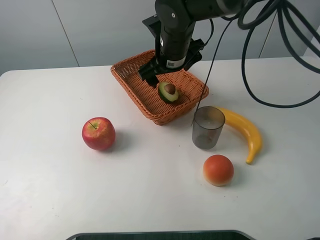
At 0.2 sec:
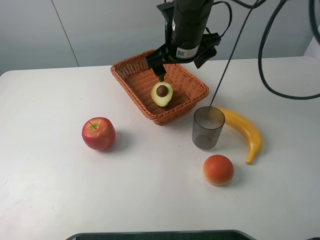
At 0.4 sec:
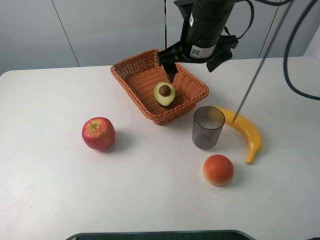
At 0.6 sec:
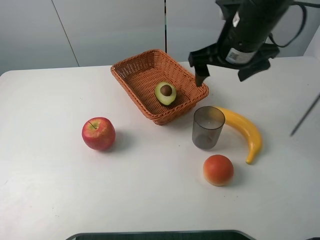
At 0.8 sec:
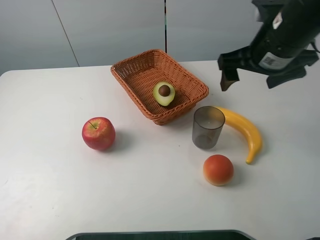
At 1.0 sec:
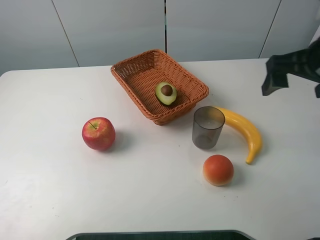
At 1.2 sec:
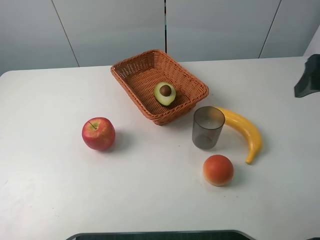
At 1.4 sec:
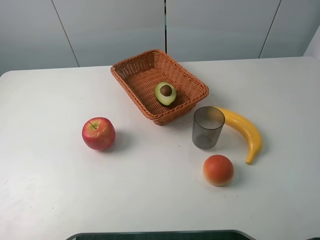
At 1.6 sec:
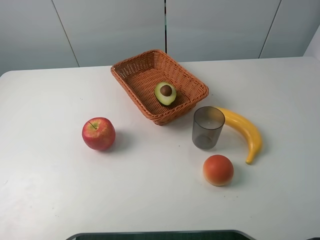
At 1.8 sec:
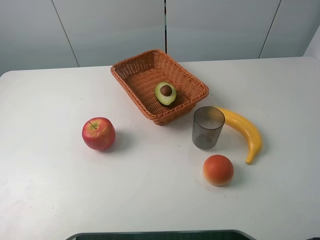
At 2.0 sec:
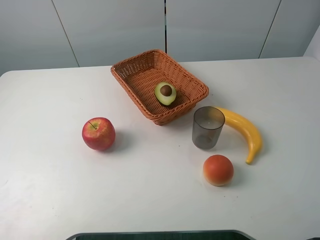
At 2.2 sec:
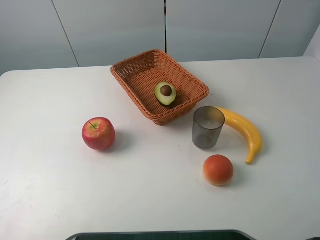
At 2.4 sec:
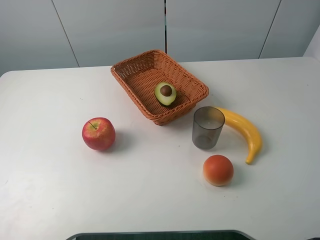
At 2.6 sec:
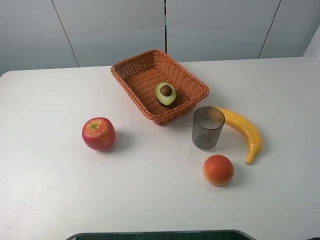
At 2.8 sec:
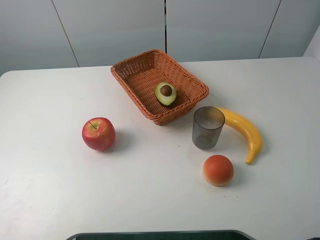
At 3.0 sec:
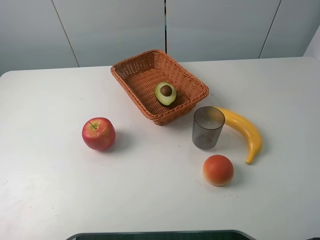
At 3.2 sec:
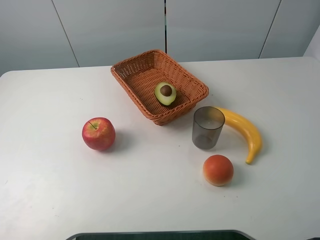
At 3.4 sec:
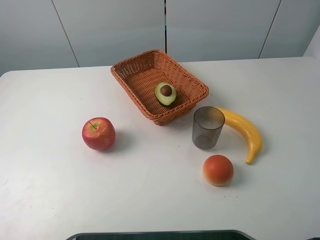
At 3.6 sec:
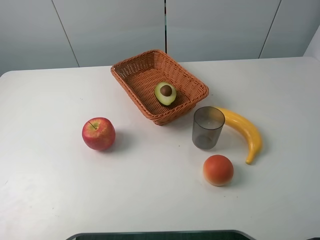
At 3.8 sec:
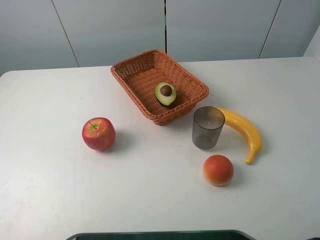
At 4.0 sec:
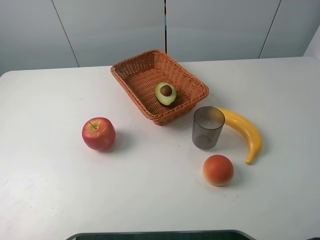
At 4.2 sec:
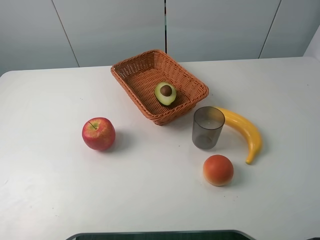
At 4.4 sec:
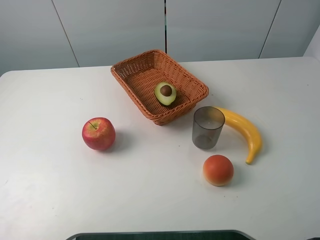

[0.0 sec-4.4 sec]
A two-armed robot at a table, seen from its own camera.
Task of the whole recording: randomly pick up an item from the table and put it in the basket.
0.0 sec to 1.4 sec: The right gripper shifts about 35 cm to the right, backward and upward.
3.0 sec to 4.4 sec: Both grippers stay put.

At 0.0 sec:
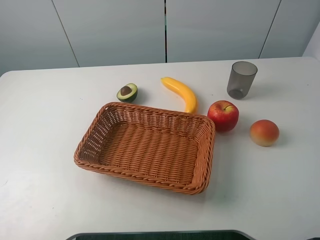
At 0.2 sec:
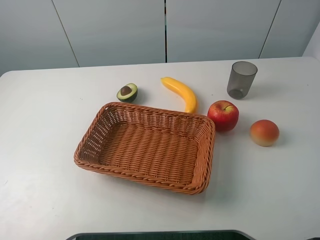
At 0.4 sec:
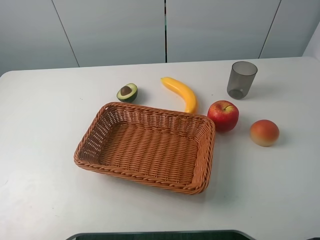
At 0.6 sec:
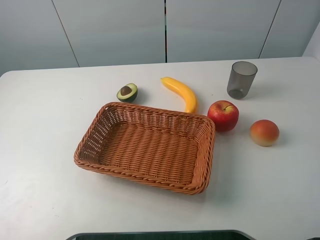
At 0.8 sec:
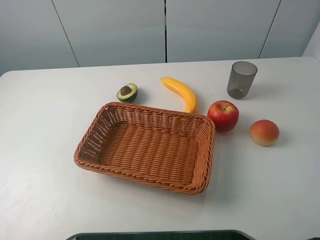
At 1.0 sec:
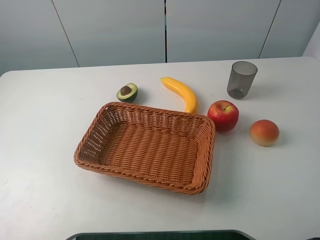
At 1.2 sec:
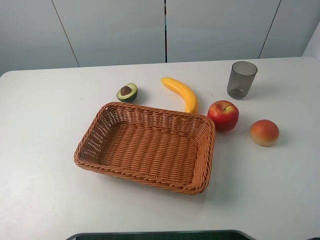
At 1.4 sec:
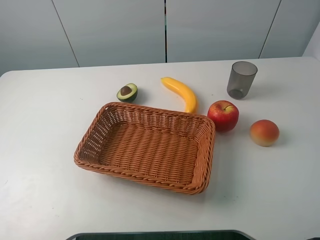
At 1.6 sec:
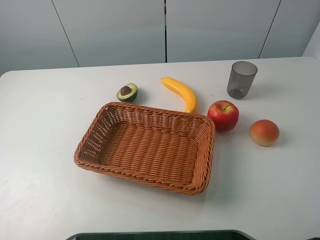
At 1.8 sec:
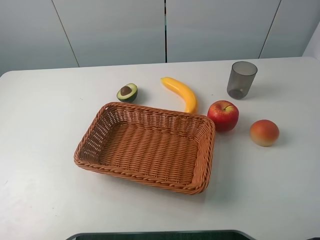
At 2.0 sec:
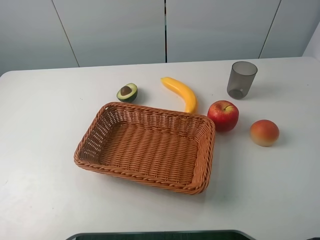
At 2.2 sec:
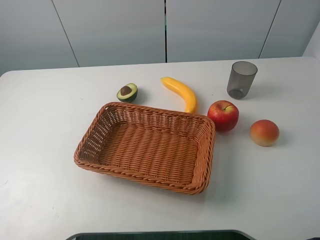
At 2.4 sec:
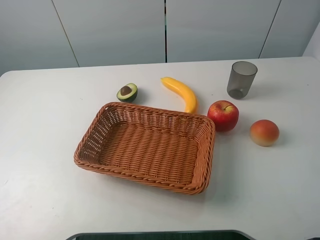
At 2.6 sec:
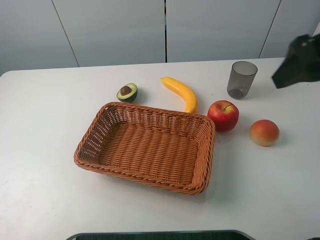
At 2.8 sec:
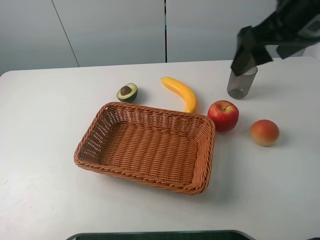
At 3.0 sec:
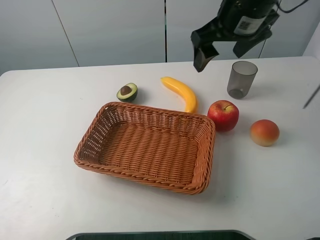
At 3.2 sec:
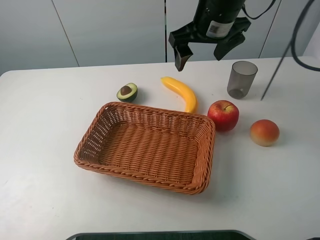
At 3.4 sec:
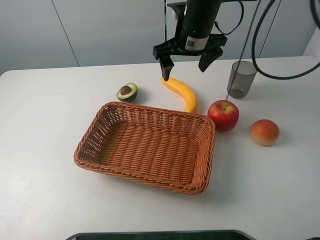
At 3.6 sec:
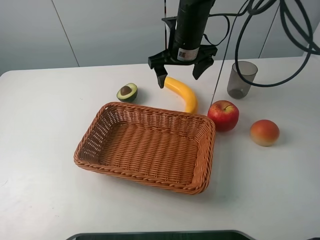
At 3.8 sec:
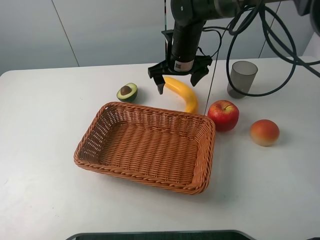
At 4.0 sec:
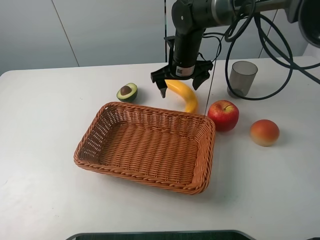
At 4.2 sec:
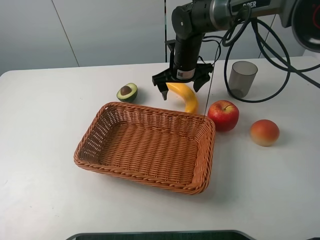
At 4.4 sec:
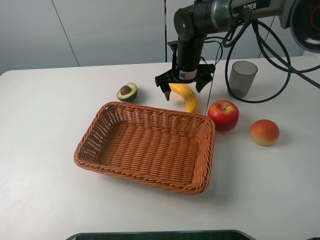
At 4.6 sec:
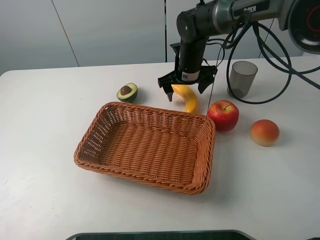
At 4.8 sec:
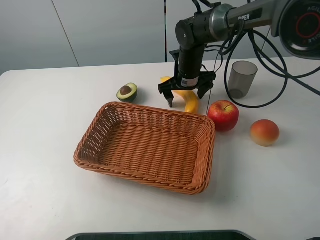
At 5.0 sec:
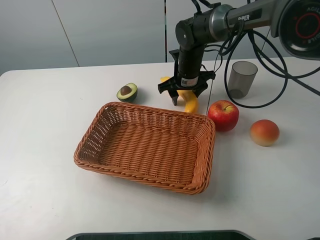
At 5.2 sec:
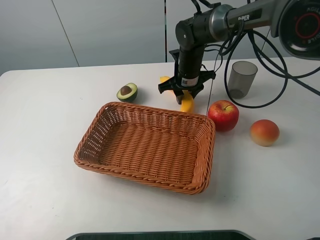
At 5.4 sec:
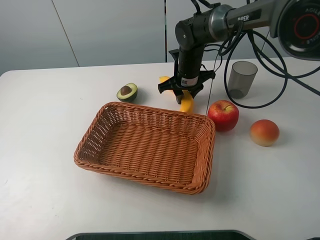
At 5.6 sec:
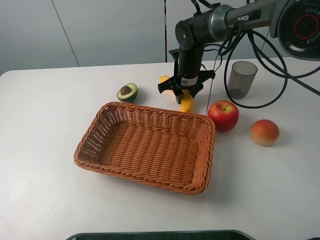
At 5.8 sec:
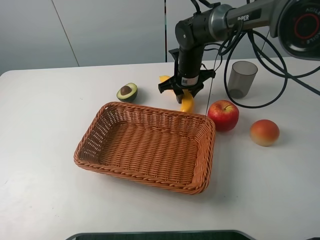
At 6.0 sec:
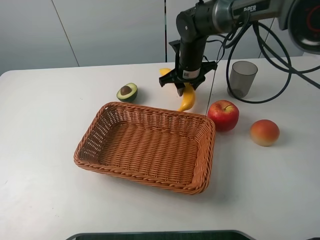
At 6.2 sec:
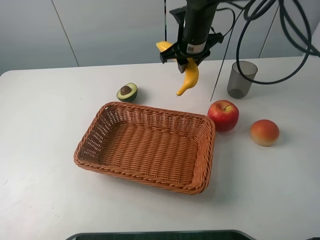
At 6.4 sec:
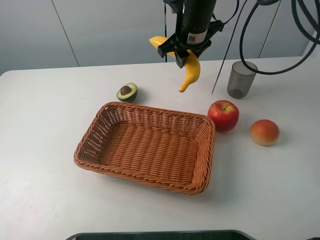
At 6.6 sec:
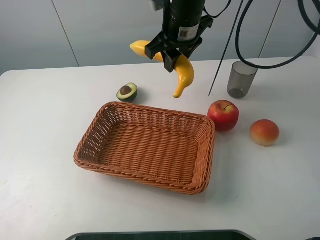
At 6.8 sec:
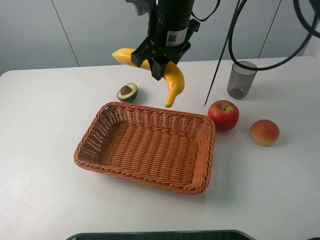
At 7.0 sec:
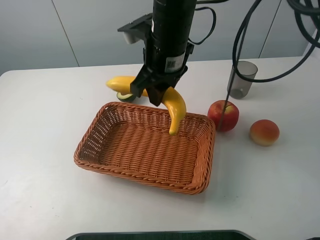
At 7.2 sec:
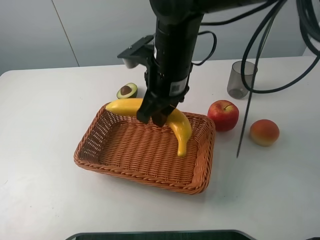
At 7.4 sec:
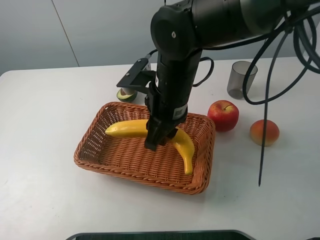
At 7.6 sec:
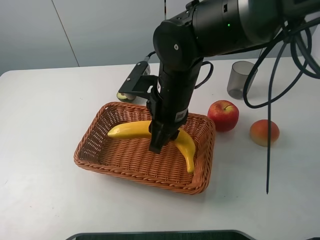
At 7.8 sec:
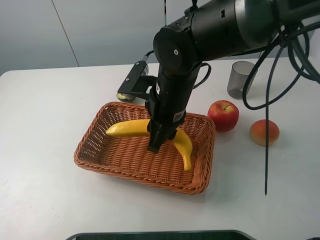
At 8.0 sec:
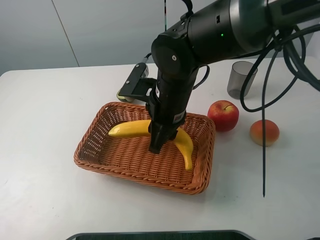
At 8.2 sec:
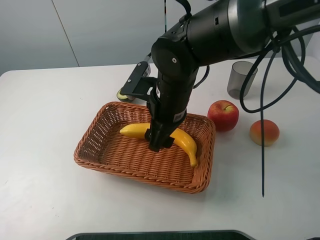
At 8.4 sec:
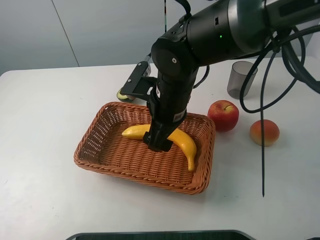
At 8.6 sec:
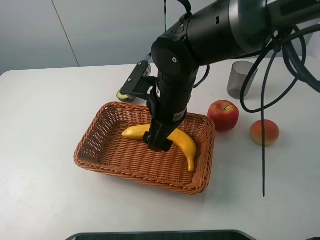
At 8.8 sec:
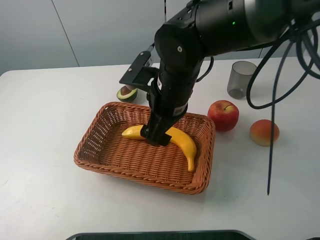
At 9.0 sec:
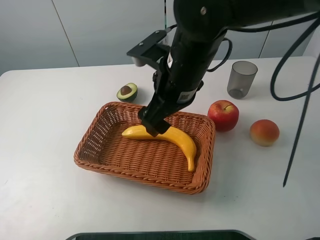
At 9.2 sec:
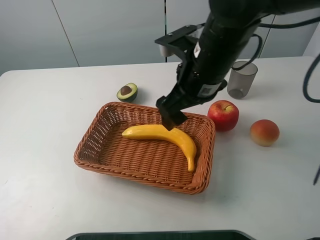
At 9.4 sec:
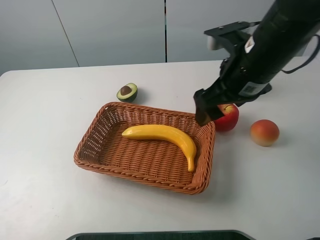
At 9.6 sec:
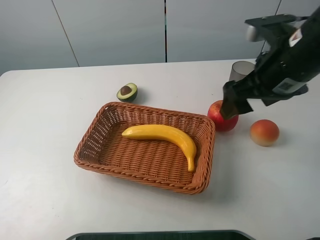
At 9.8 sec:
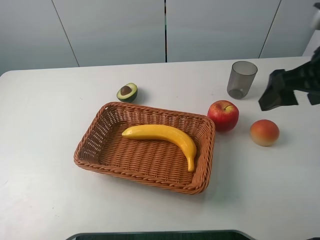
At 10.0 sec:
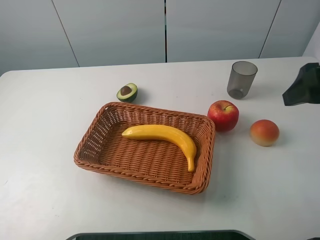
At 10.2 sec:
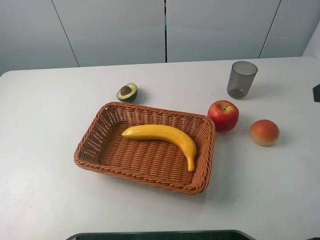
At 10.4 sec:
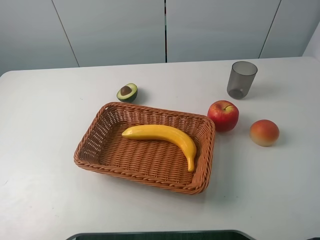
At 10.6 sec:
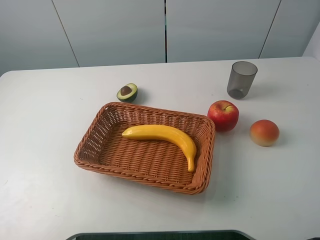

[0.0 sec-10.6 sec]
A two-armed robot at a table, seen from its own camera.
Task of the whole recording: randomly pick up an item from the table and put it in the basket.
Step, 0.0 sec to 5.2 sec: Grasp the banana with the right gripper.
Step, 5.4 sec to 9.0 sec: Place the banana into the basket with the right gripper.
0.0 sec to 1.6 sec: Both grippers stay about where they are.
1.6 sec to 3.0 sec: The right gripper shifts about 35 cm forward and to the left.
3.0 sec to 4.6 sec: The right gripper is displaced downward and forward by about 20 cm.
4.6 sec to 6.0 sec: The right gripper closes up.
6.0 sec to 7.6 sec: The right gripper shifts roughly 20 cm backward.
7.6 sec to 9.0 sec: The right gripper ends up roughly 5 cm from where it was, and opens its fingers.
9.0 sec to 10.6 sec: The right gripper travels to the right, backward and upward by approximately 35 cm.
